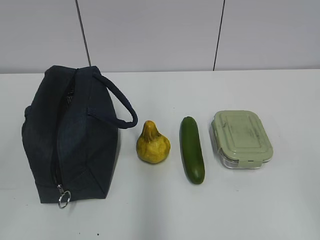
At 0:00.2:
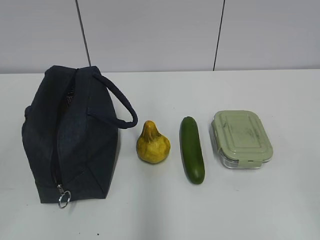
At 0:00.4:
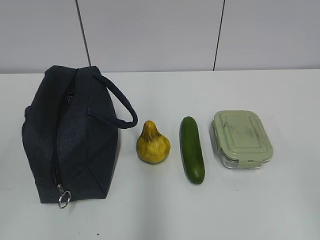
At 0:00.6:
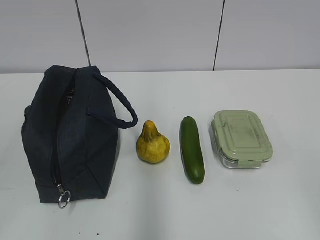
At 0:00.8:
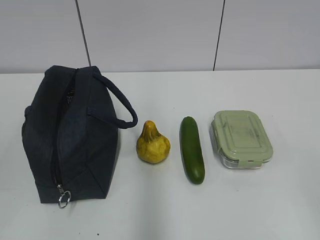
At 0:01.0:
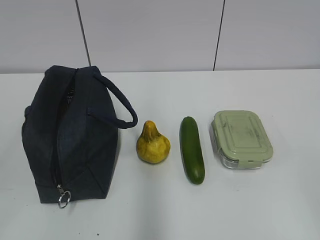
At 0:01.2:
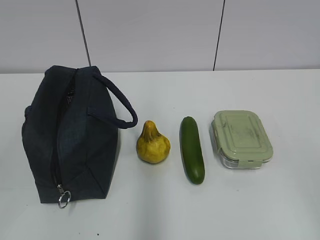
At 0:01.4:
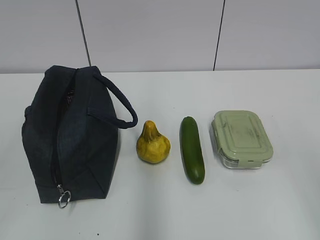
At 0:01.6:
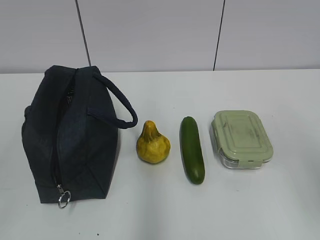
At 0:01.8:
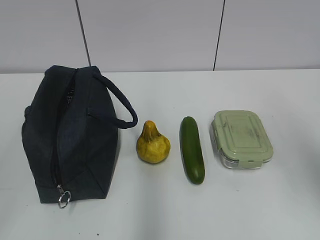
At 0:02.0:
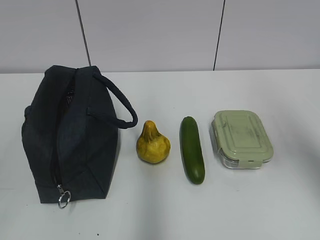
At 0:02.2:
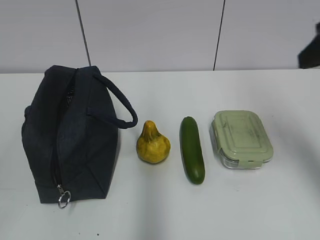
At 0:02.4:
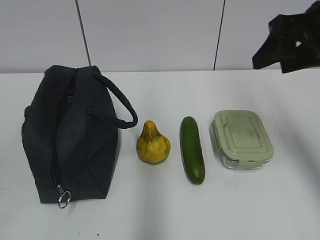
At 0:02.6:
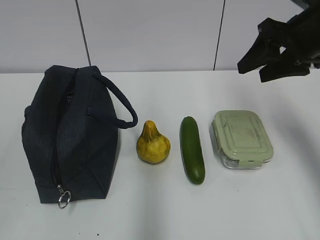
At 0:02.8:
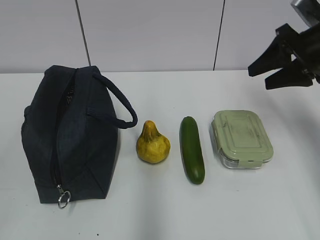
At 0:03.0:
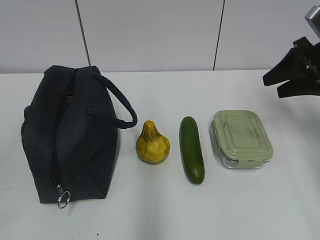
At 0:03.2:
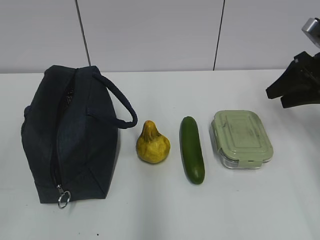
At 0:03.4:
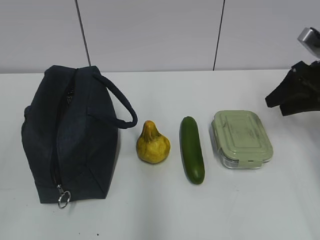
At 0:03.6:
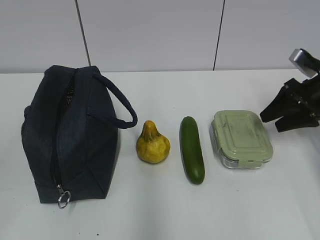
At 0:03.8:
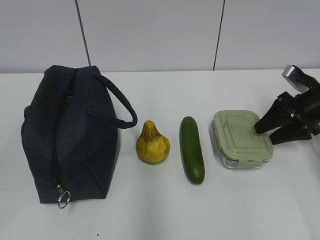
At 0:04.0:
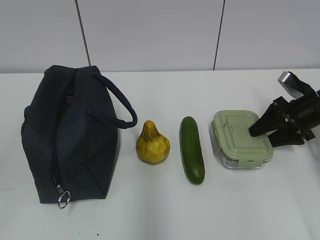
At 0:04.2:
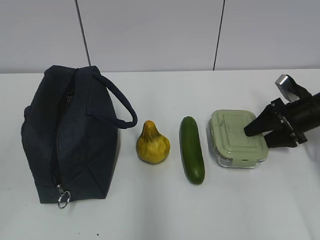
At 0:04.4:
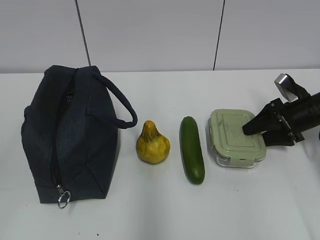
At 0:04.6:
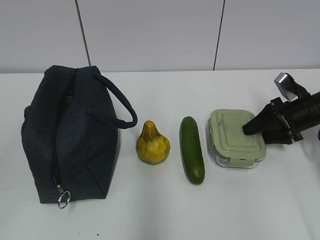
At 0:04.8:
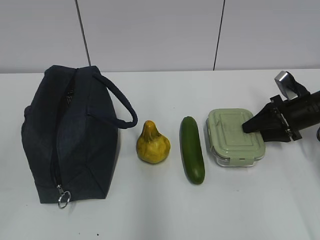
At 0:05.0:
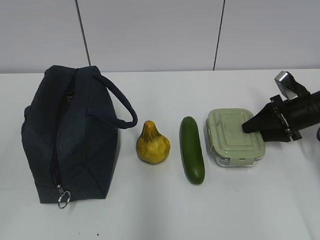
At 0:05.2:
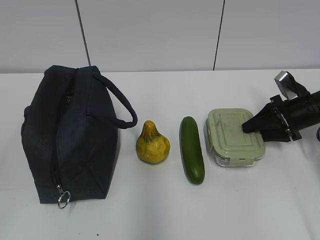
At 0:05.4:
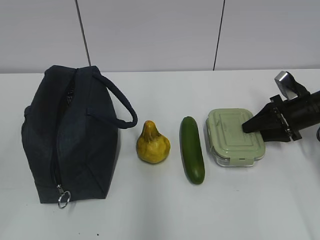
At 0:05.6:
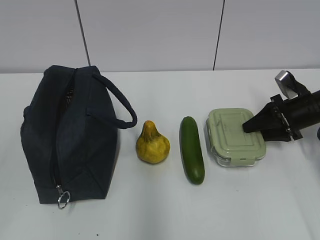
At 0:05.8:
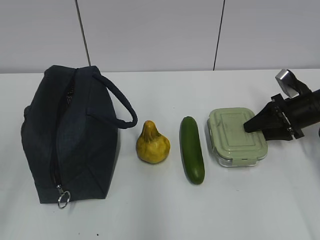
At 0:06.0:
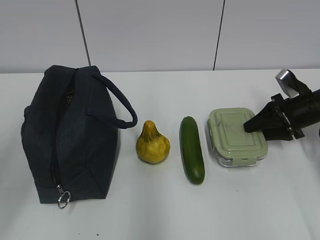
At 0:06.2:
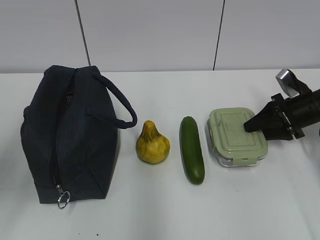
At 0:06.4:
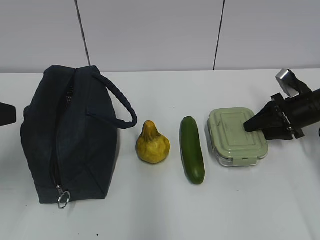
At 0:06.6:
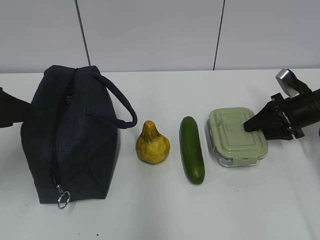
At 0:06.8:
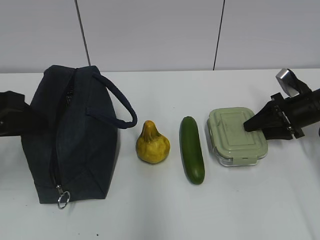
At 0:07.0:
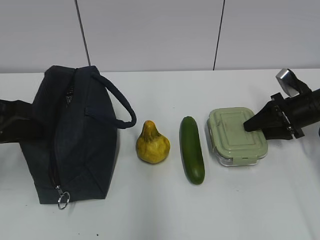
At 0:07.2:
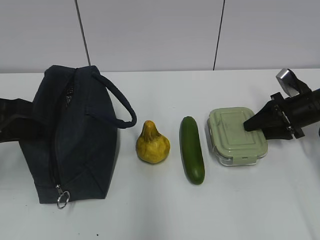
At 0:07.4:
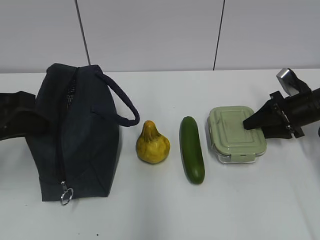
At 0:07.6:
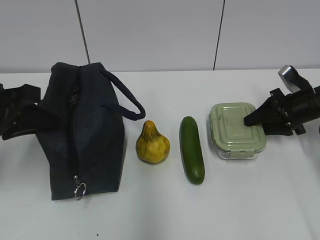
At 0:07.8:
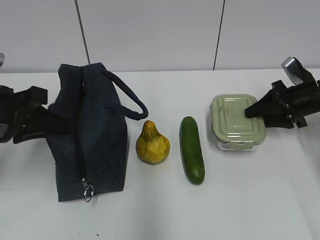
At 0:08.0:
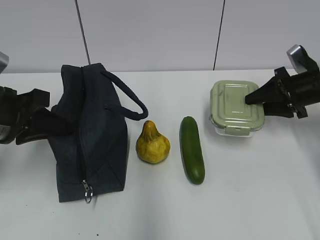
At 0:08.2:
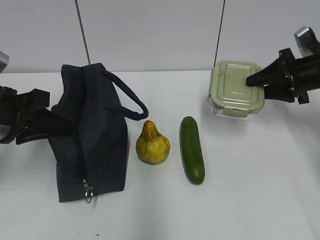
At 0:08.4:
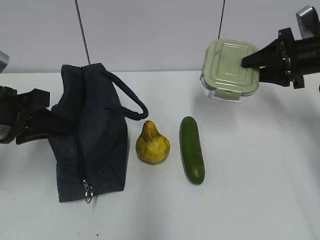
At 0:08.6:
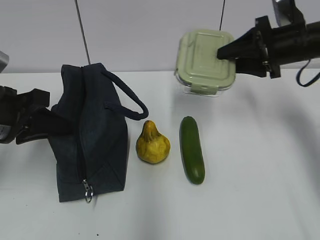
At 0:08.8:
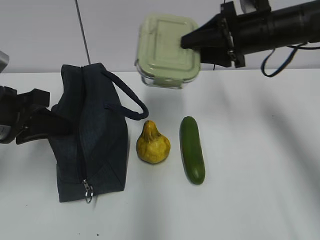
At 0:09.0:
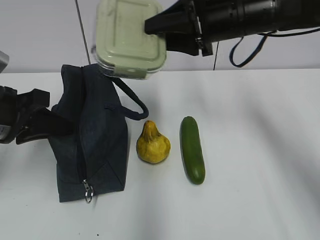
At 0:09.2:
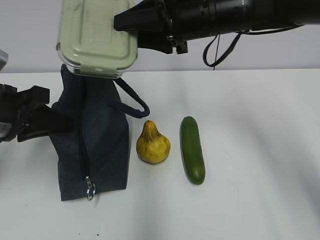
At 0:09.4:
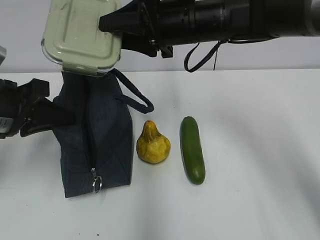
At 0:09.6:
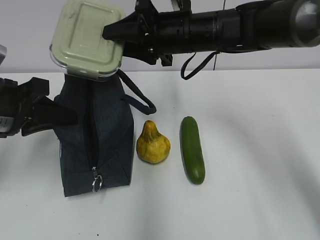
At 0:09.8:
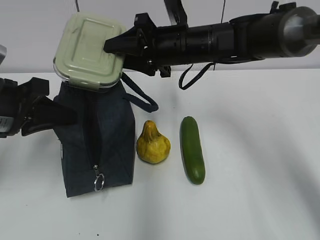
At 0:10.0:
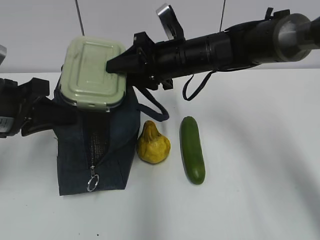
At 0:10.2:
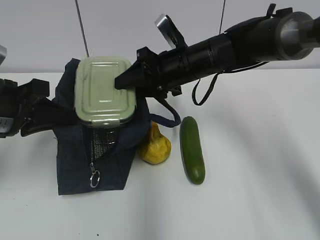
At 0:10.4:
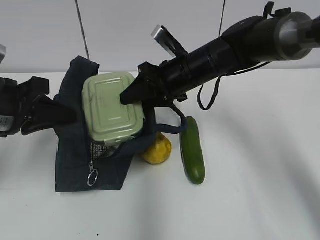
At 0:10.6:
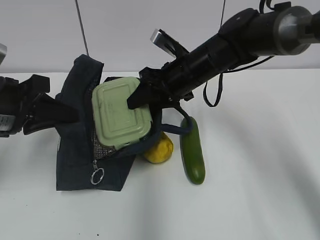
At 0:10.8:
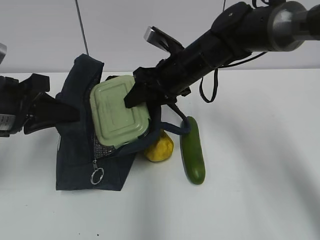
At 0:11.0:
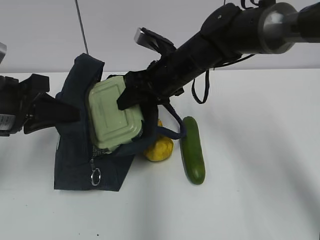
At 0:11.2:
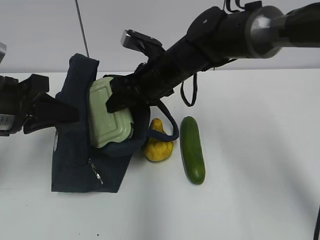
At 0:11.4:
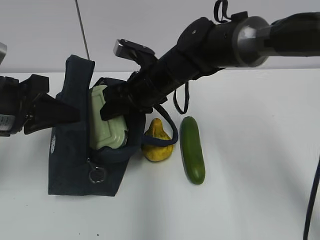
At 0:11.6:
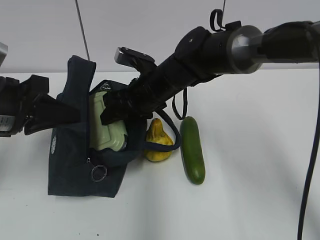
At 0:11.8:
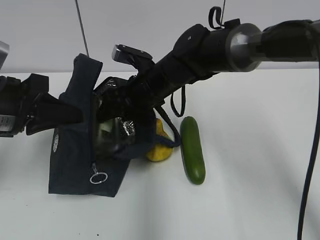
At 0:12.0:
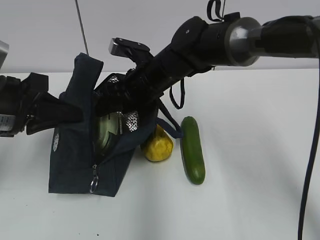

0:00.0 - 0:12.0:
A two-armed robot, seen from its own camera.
Step, 0:00.0 - 0:06.2: Grab the lunch box with your right hand.
Step, 0:06.4 - 0:10.4: Grab the lunch bag with your left hand.
0:01.6 - 0:03.0: The right gripper heads forward, covering about 30 cm.
0:03.0 - 0:04.4: The right gripper shifts approximately 15 cm downward.
0:04.4 - 0:06.0: The left gripper travels forward by approximately 10 cm.
0:06.0 - 0:07.6: The left gripper shifts some 15 cm forward and downward, and closes.
0:07.6 - 0:09.0: The right gripper heads to the left and upward, covering approximately 25 cm.
0:09.0 - 0:10.4: The right gripper goes approximately 10 cm downward and to the left.
0:10.4 - 0:12.0: The right gripper shifts some 5 cm to the left.

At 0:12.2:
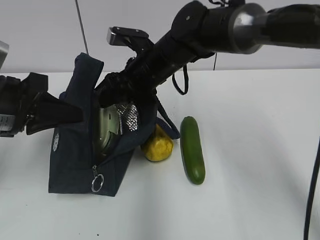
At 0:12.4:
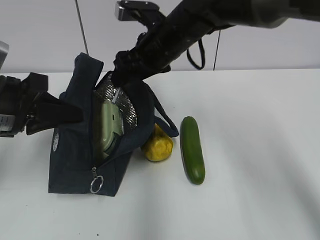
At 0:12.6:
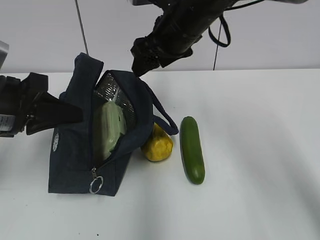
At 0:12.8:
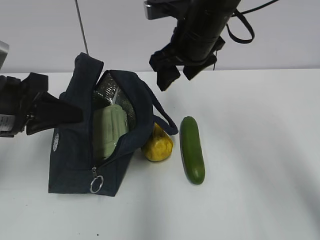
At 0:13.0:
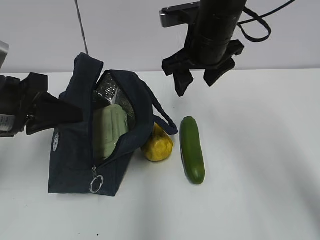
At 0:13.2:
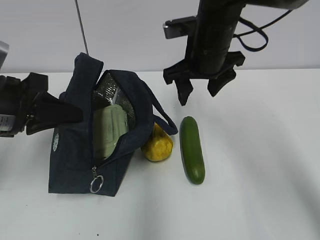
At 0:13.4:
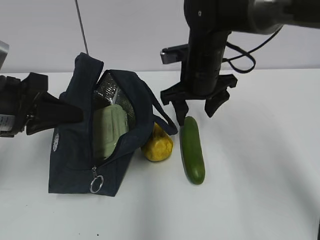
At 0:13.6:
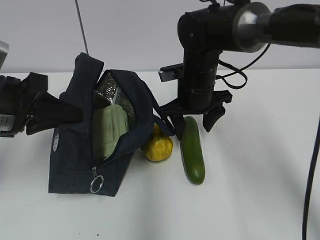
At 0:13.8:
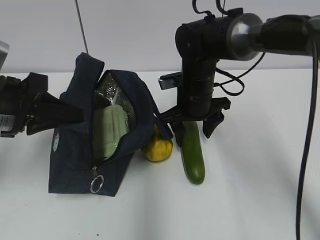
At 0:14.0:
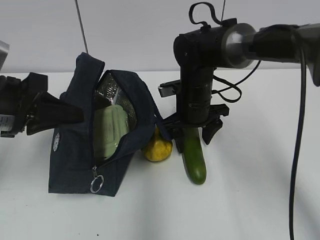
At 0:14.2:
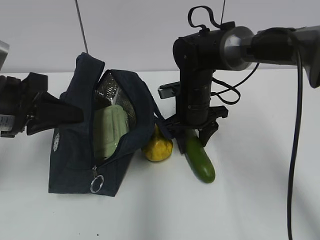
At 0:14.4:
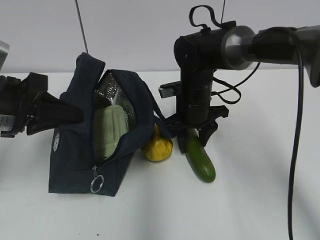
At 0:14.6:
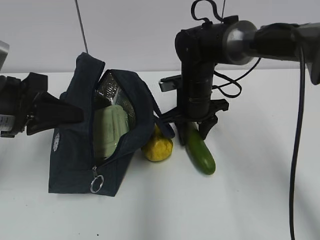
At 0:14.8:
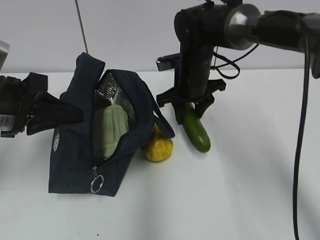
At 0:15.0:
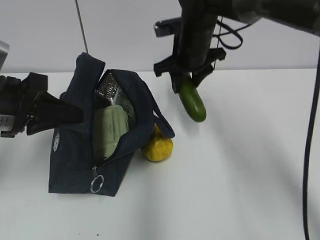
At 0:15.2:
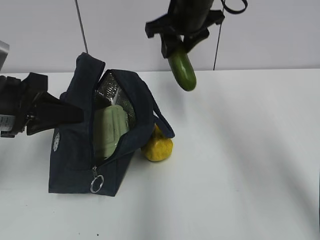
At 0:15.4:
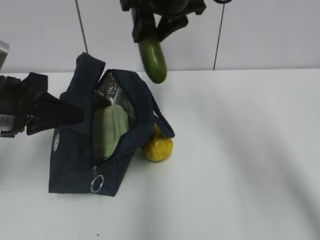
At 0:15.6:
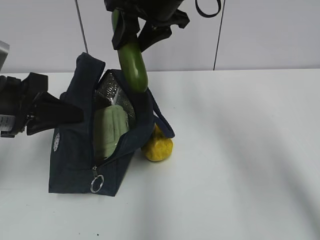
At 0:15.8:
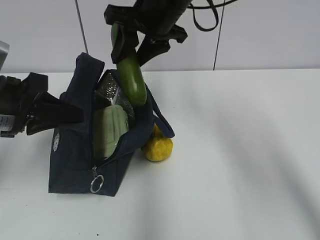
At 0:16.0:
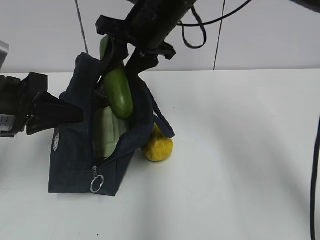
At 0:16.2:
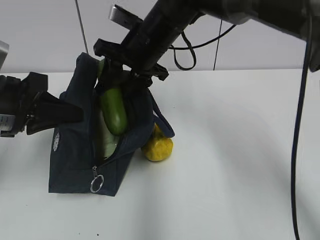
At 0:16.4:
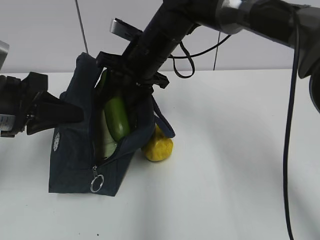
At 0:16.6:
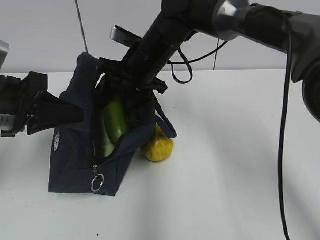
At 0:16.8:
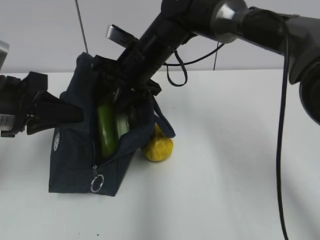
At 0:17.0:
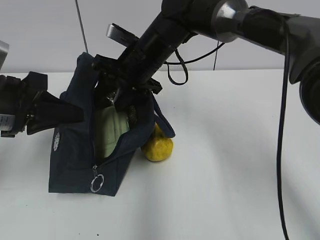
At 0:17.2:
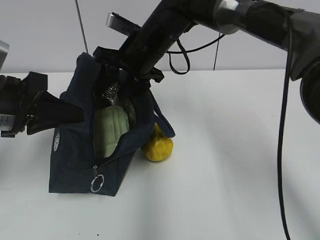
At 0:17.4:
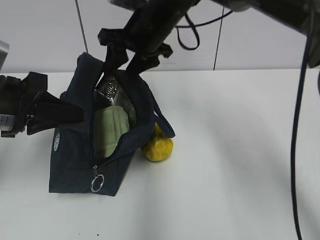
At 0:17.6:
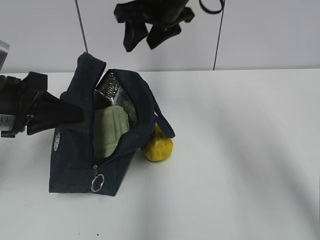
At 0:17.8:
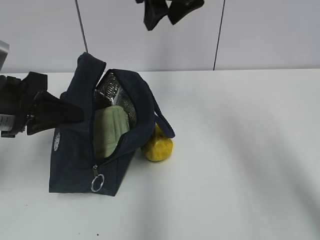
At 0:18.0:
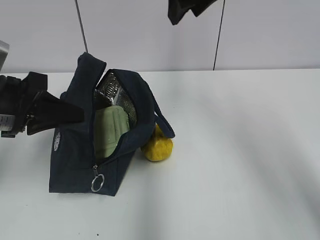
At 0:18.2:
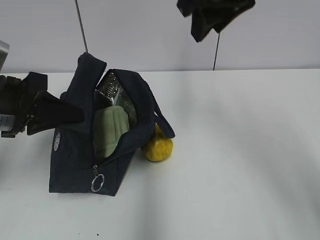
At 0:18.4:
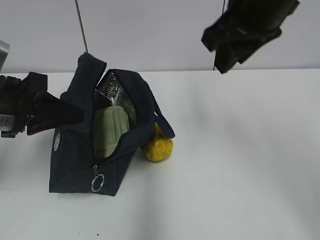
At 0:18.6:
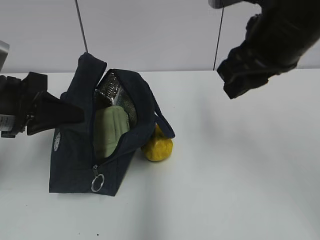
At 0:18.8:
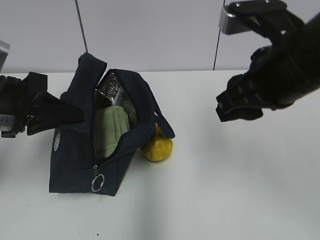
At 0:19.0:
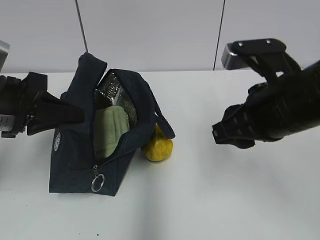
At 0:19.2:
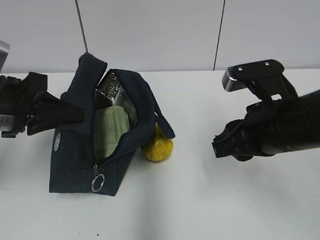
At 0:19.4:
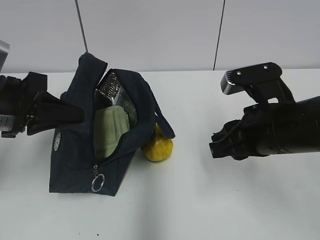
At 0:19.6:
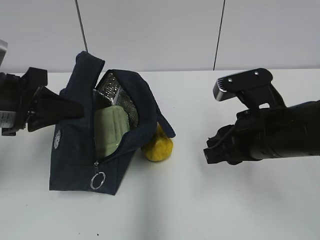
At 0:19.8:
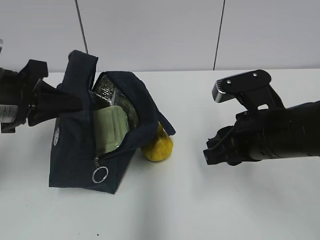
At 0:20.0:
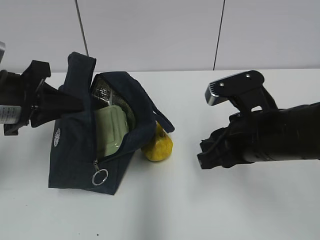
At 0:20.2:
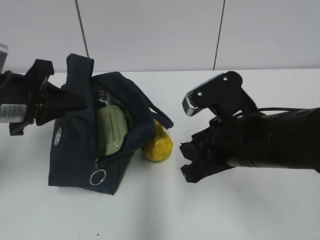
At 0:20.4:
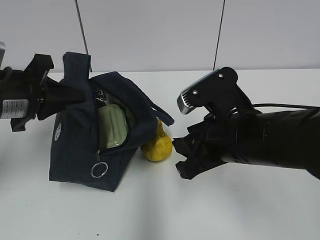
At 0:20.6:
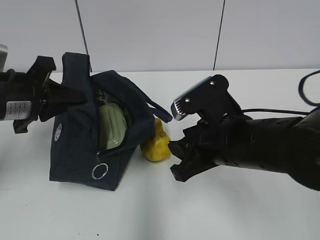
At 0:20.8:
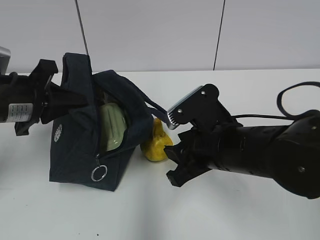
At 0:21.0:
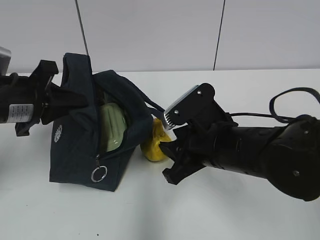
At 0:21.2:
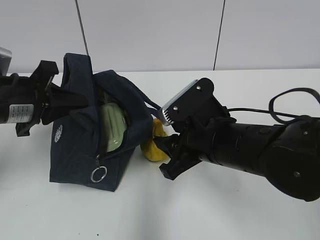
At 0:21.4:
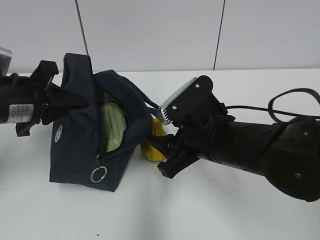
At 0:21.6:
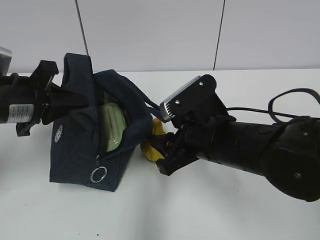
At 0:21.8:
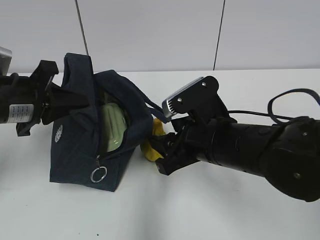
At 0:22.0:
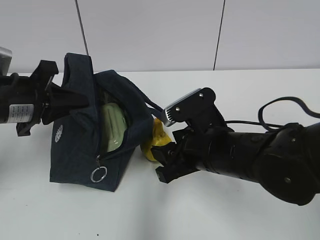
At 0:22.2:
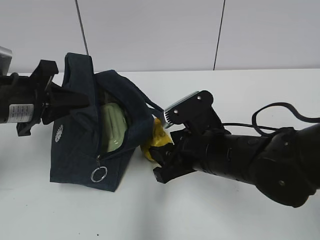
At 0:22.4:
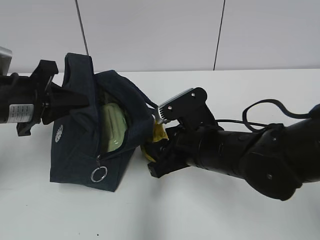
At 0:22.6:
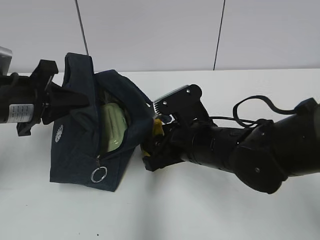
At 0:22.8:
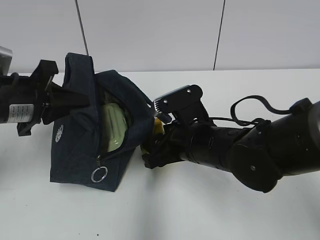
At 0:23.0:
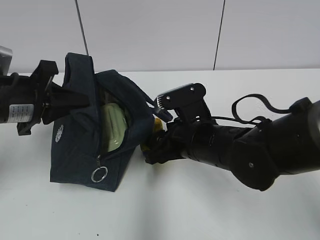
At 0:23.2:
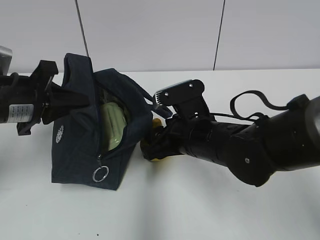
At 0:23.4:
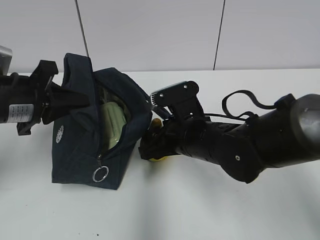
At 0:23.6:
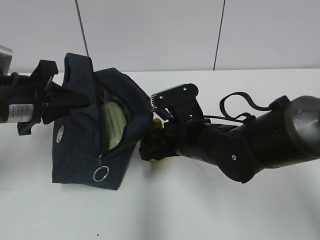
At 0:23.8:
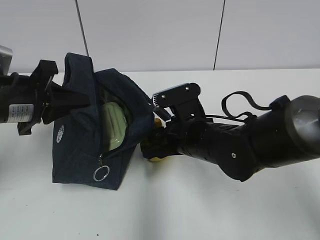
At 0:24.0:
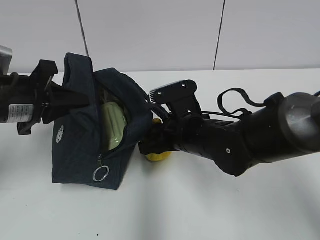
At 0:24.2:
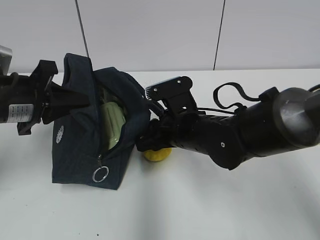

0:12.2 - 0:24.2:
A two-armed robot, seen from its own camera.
Step, 0:12.8 - 0:14.4: Grab the cucumber with your right hand.
Step, 0:14.6 - 0:17.4: Place it into the bag with your right hand.
0:12.2 - 0:13.8: The right gripper shifts some 10 cm to the right and downward.
0:13.8 - 0:15.2: The right gripper is displaced upward by about 15 cm, and closes up.
0:15.2 - 0:16.6: The right gripper moves downward and to the left, some 10 cm.
0:16.6 - 0:18.2: The right gripper is displaced upward, to the right and backward by some 20 cm.
0:18.2 - 0:19.8: The right gripper shifts about 20 cm downward and backward.
0:19.8 - 0:21.2: The right gripper travels to the left by approximately 5 cm.
0:21.2 - 0:22.6: The grippers make only small movements.
0:22.6 - 0:24.2: The grippers stay close to where they were, moving slightly.
